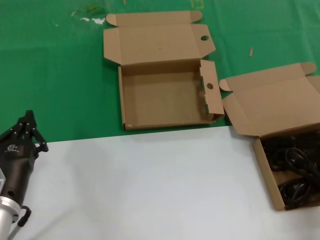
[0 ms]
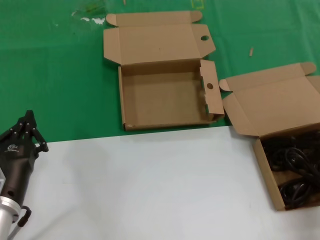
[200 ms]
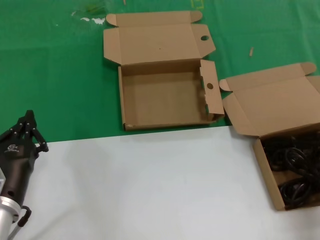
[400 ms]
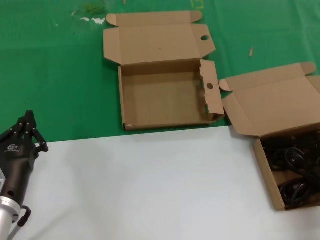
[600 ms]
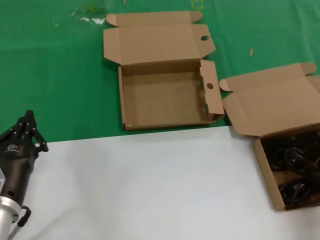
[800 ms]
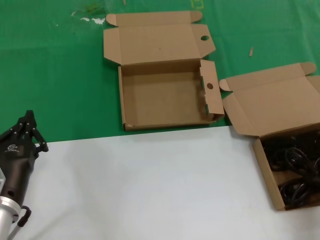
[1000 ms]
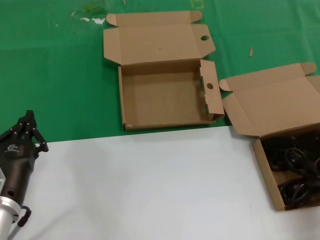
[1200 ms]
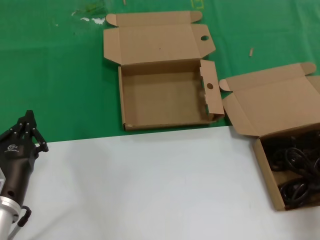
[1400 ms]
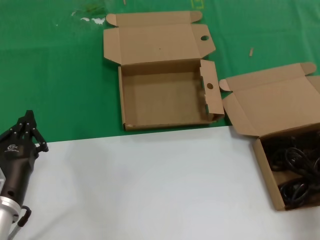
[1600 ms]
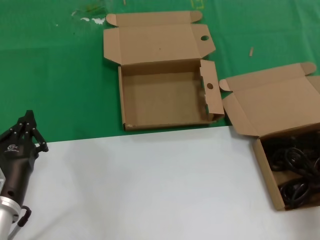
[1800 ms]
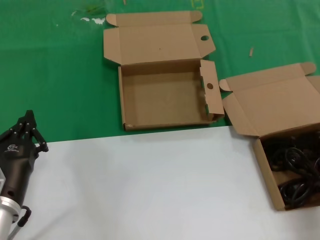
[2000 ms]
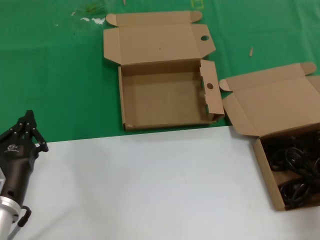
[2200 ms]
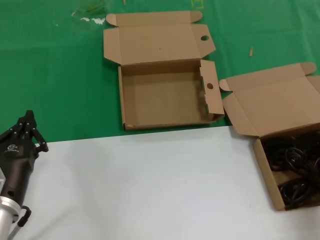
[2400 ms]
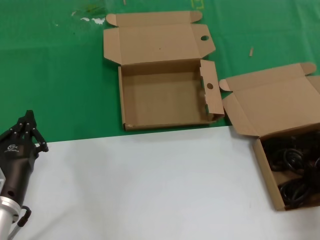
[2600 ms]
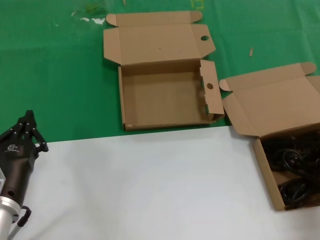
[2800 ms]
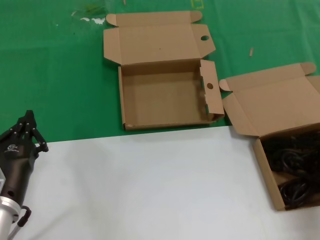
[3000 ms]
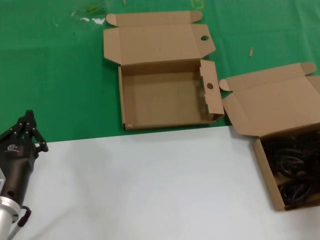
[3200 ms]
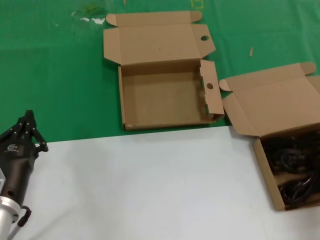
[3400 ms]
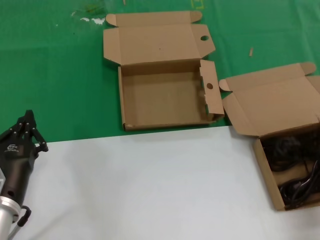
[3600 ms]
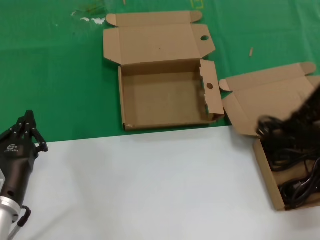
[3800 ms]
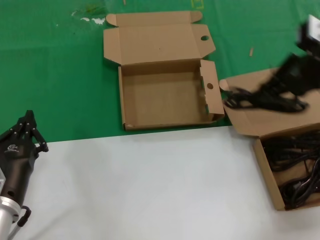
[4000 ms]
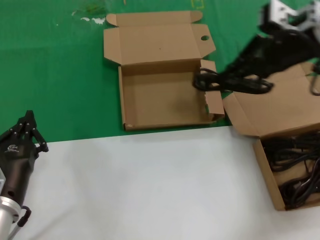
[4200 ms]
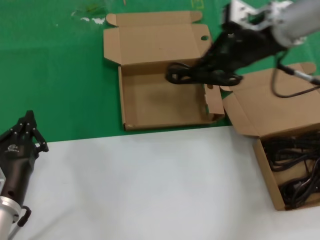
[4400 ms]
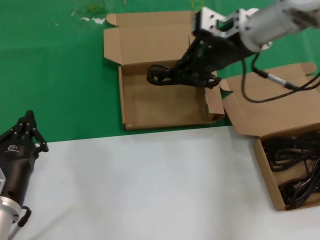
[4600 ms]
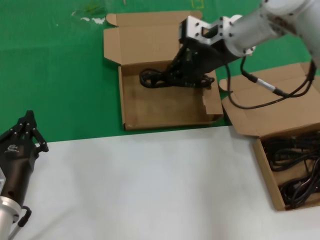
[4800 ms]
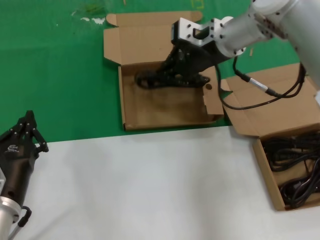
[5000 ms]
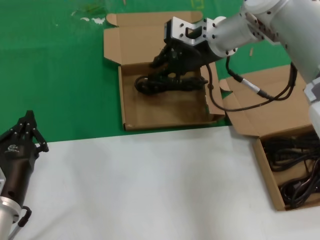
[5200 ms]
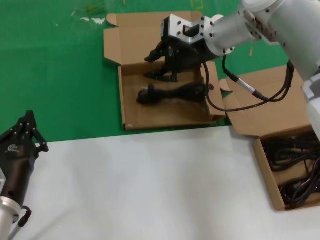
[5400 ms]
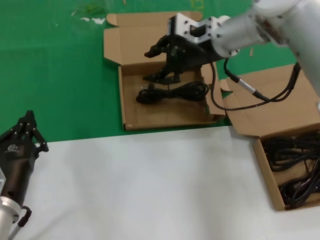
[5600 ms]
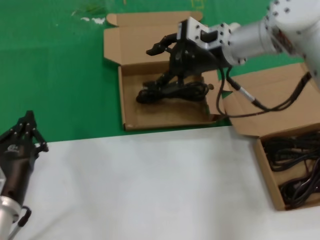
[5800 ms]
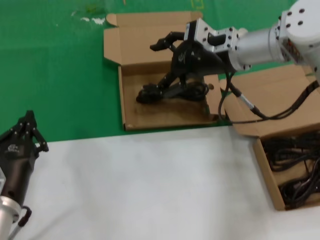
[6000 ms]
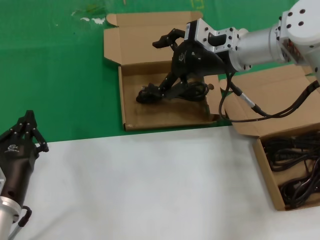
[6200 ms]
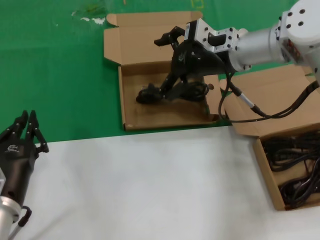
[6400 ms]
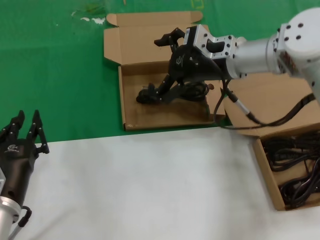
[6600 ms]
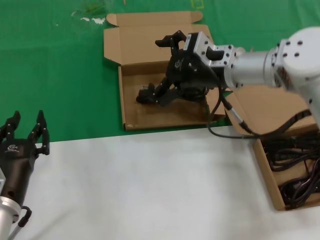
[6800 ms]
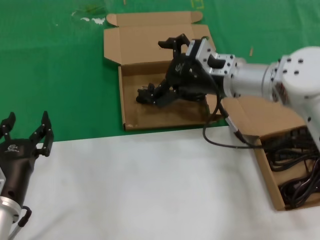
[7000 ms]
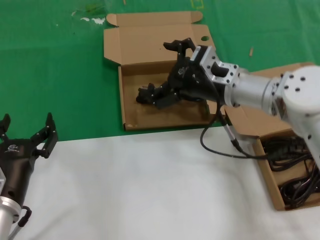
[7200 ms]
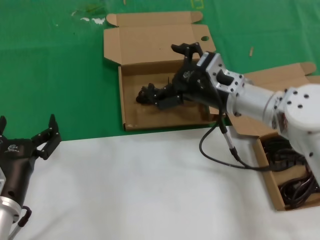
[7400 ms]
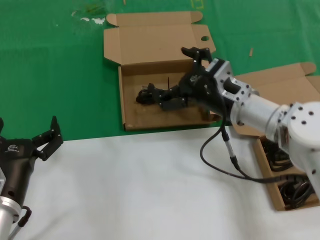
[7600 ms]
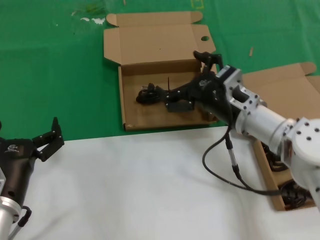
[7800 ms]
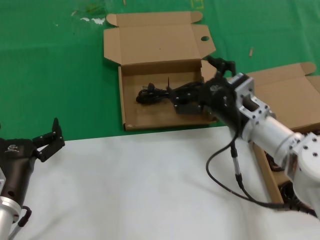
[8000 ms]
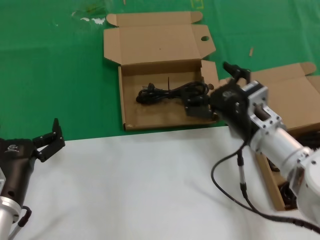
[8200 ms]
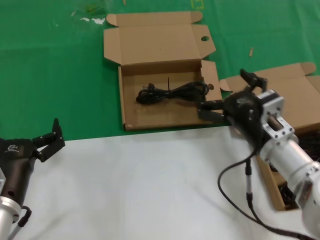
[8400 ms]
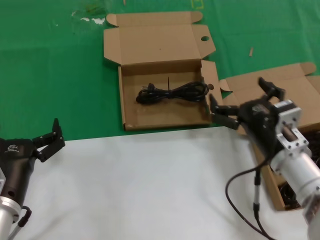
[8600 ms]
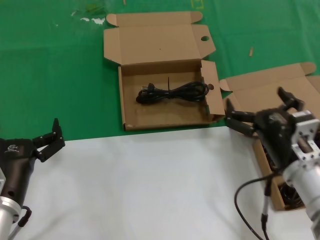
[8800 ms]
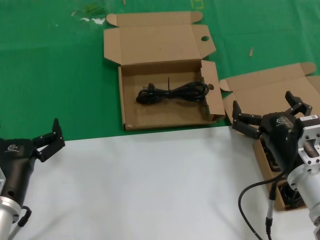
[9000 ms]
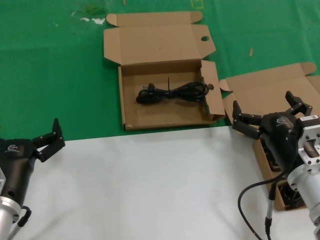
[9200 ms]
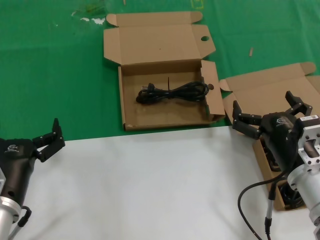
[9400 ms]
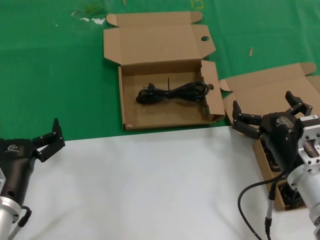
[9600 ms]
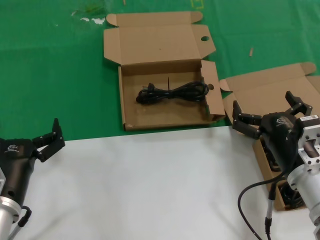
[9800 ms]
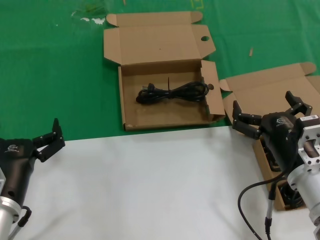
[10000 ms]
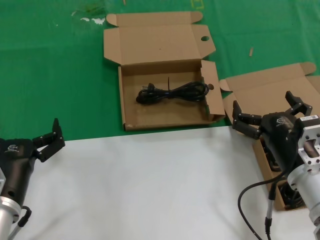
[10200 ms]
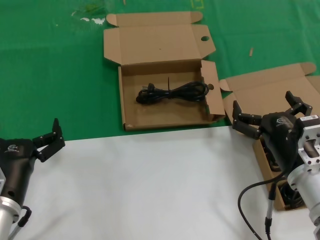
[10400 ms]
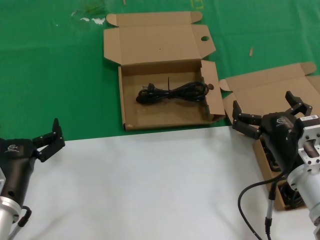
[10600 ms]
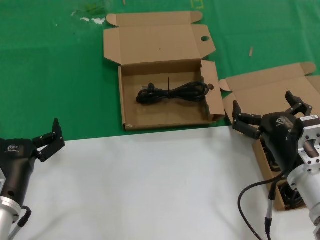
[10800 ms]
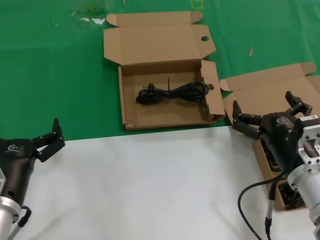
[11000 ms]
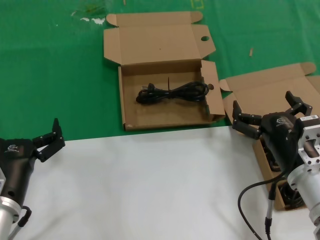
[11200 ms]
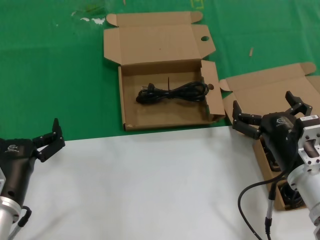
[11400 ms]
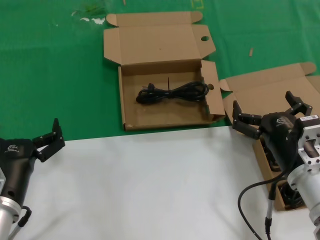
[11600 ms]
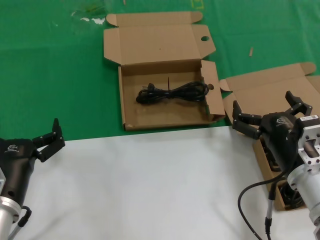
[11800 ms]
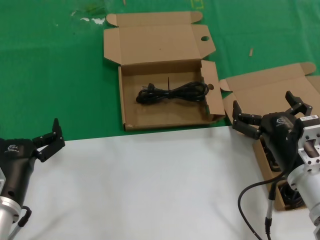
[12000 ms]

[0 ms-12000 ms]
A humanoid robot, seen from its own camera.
Task of the whole recording: take the parts from the box containing them and put them into an empty box.
Step, 3000 ms to 5600 ms: Place the data cable in the another box.
3000 ms to 4400 ms: The right hand shifts roughly 20 cm to the left, upward and forward.
4400 ms to 6000 ms: The right hand goes some 10 cm downward and to the left.
6000 ms to 7600 ms: The right hand is displaced downward and backward by about 15 cm.
7600 ms to 9000 ms: The right hand heads backward and downward, covering some 15 cm.
9000 ms to 12000 ms: Both hands stay put.

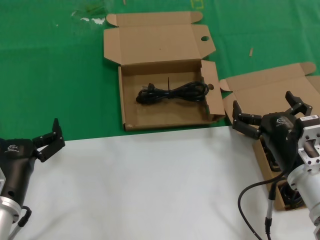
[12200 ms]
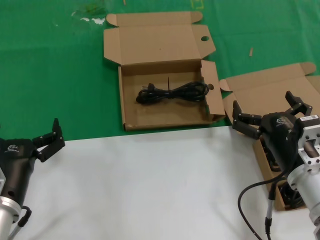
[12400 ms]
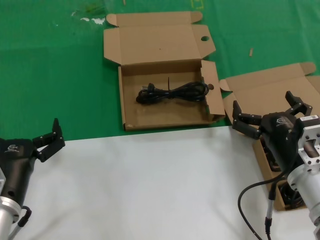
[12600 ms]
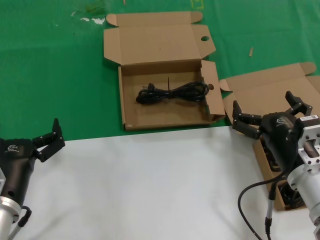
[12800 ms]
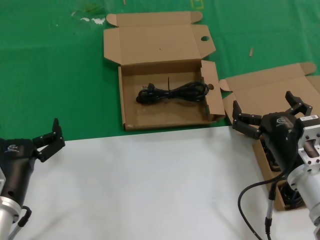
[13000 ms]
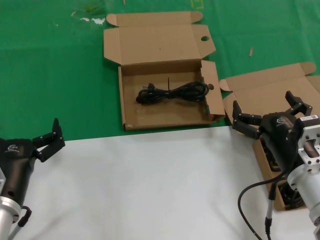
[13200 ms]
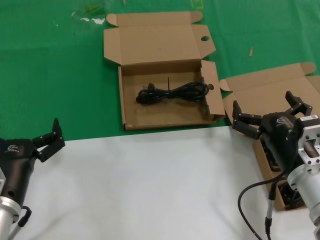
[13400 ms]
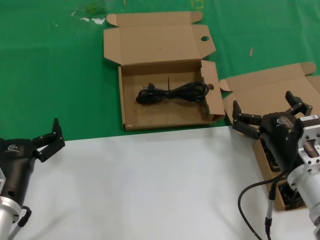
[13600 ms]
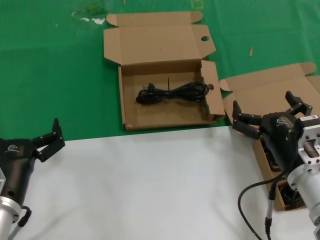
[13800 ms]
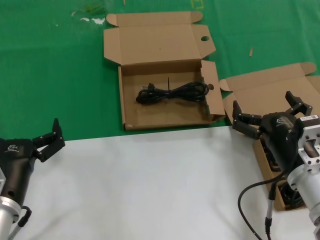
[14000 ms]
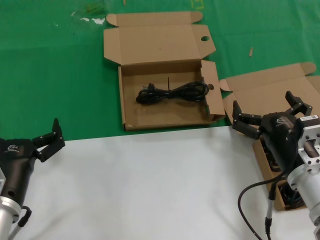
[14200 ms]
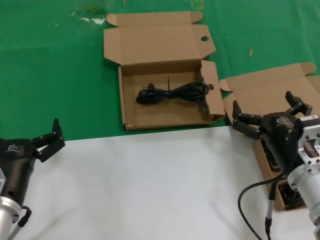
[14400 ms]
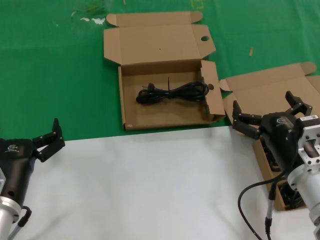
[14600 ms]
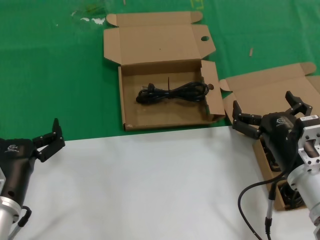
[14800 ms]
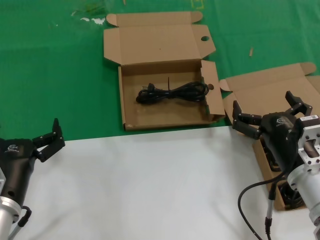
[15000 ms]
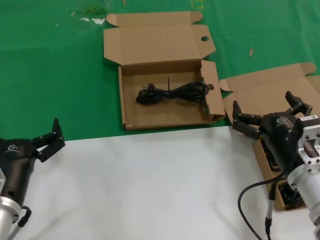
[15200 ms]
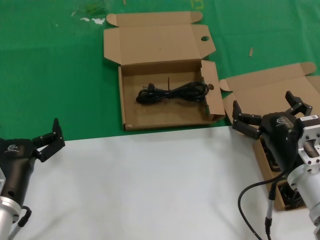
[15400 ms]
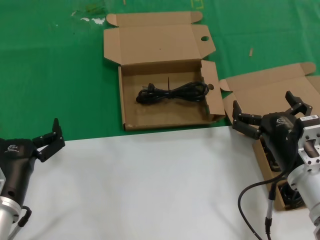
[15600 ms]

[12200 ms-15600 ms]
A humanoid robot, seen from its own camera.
Task of the whole recording: take the parts from the box containing them and put them into an empty box.
12200 ms to 15600 ms: Neither hand changes place.

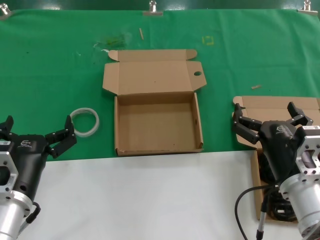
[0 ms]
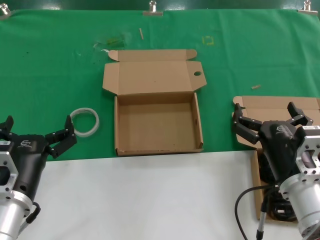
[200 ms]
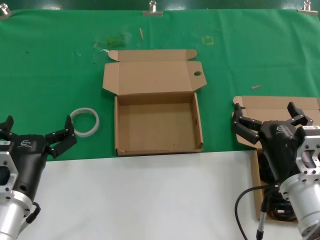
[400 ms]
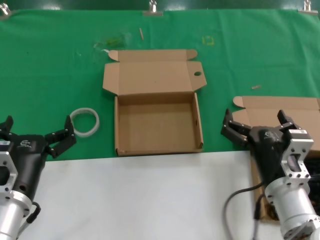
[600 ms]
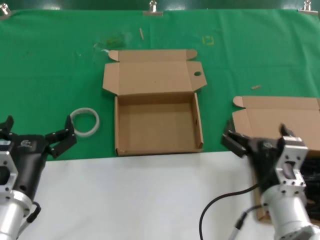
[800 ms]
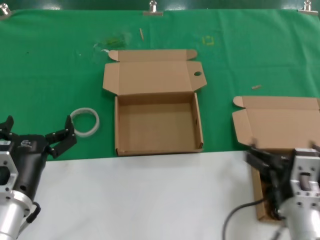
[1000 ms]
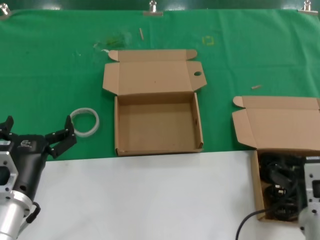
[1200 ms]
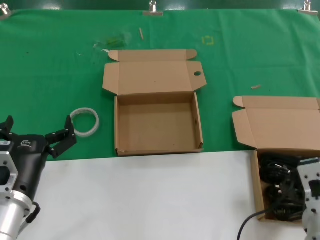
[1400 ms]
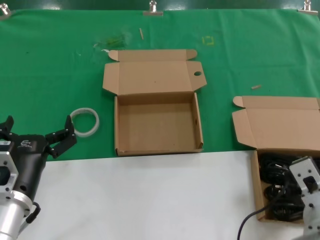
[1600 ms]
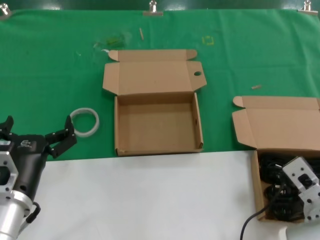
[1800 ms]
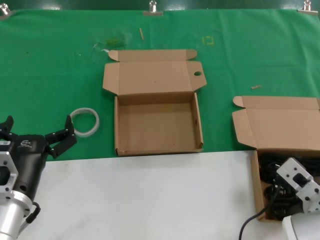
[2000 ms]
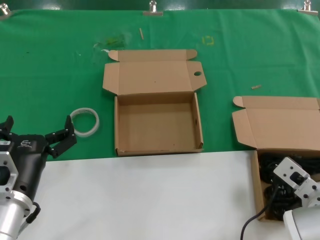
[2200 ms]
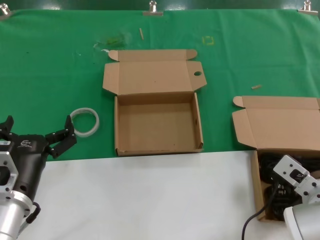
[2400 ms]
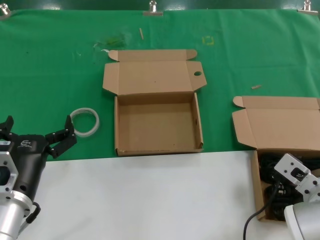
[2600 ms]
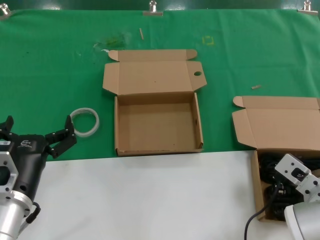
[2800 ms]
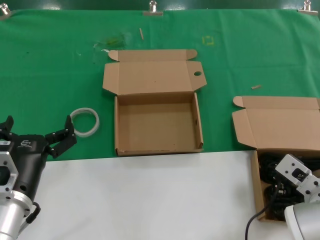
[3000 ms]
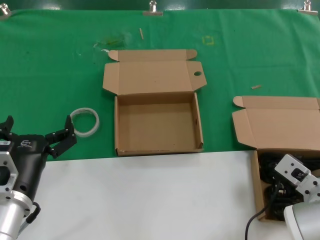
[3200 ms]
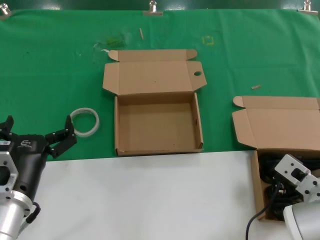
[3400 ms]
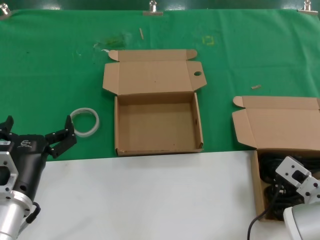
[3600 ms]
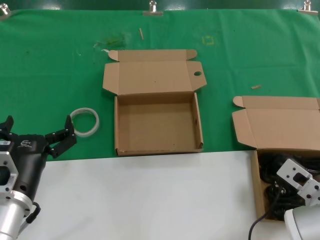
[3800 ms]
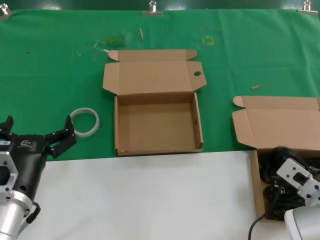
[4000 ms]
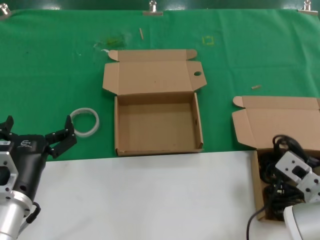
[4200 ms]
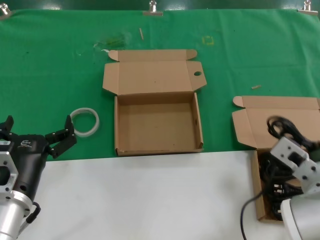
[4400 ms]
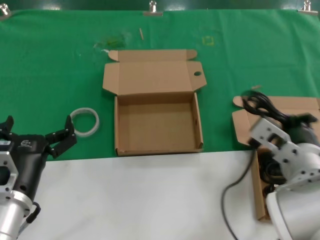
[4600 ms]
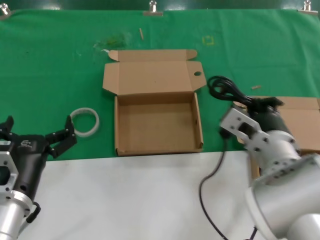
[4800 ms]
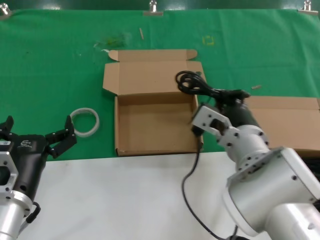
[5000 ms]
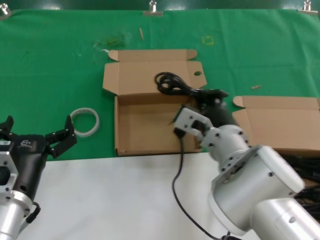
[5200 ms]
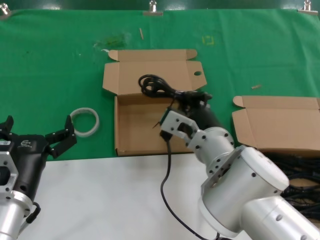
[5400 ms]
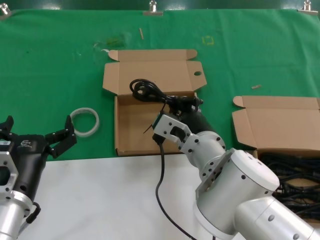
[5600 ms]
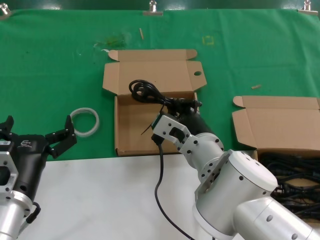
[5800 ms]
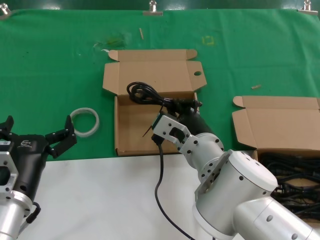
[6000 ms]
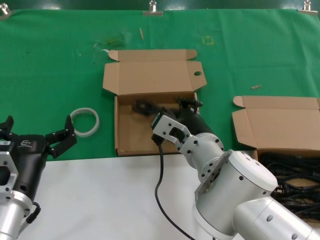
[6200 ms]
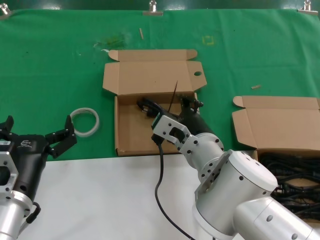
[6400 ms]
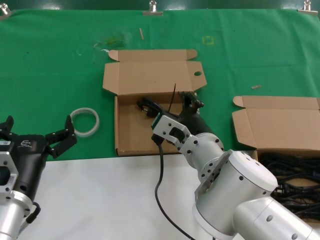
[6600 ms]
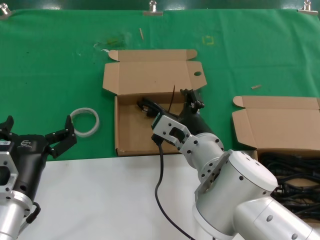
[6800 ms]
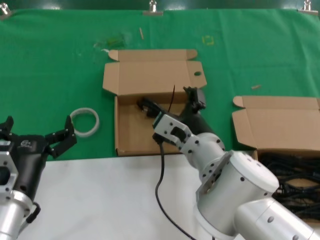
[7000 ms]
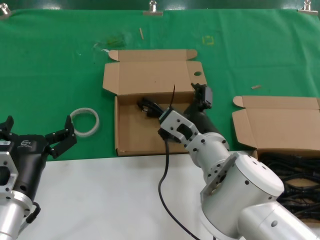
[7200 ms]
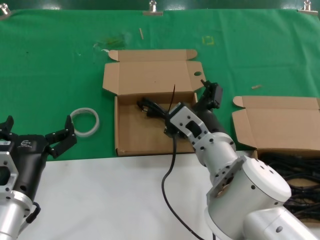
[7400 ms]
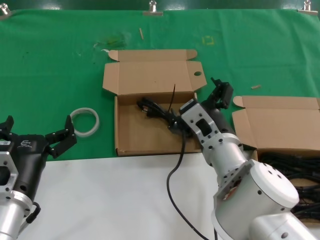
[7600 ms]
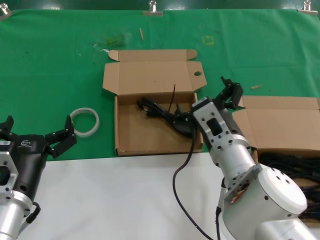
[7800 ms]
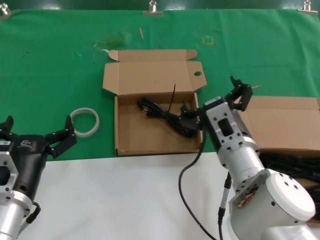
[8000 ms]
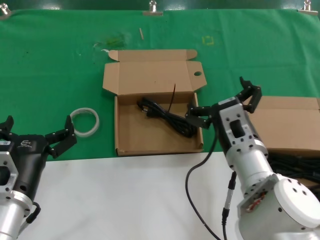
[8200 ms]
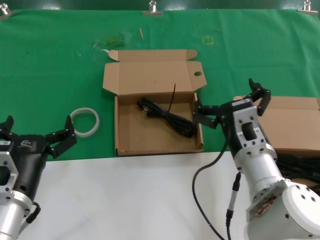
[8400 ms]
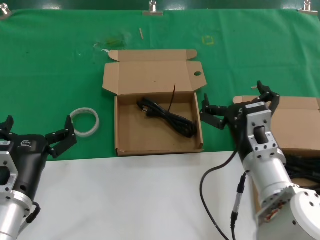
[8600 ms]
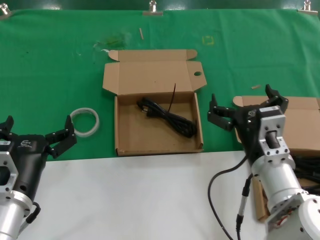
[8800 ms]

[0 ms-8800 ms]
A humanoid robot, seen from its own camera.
Task of the whole recording: take the parts from the box containing them and put them into an empty box.
Step, 0 ms to 3800 ms: Grasp the data cable.
Step, 4000 ms to 6200 ms: Place the data cable in the another box.
1400 ms to 3000 ms: The right hand is displaced forward by about 5 cm.
3000 ms to 4400 ms: The hands move only a little.
4400 ms to 5800 ms: The right hand is displaced to the left and forward by approximately 15 cm.
5800 ms to 7400 ms: The hands make only small movements.
7400 ms to 8800 ms: The right hand goes about 10 cm to the right.
